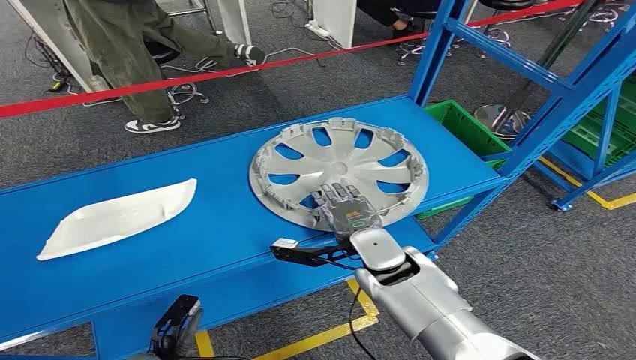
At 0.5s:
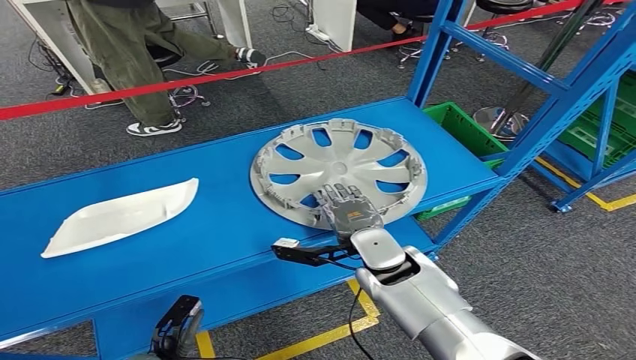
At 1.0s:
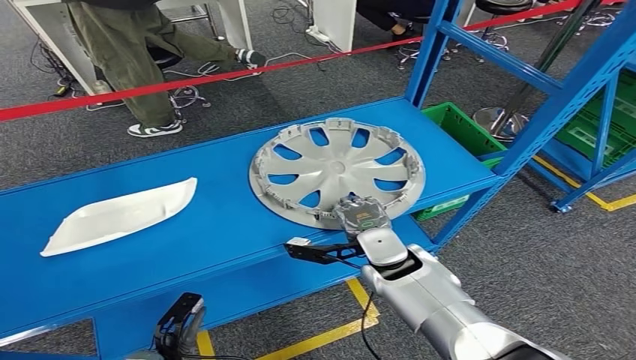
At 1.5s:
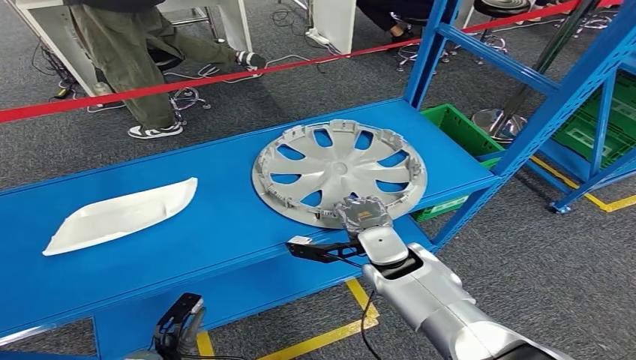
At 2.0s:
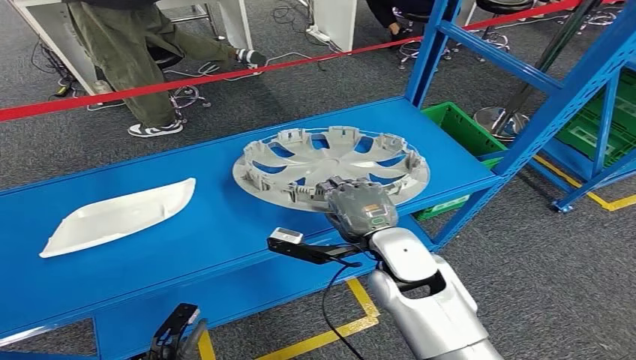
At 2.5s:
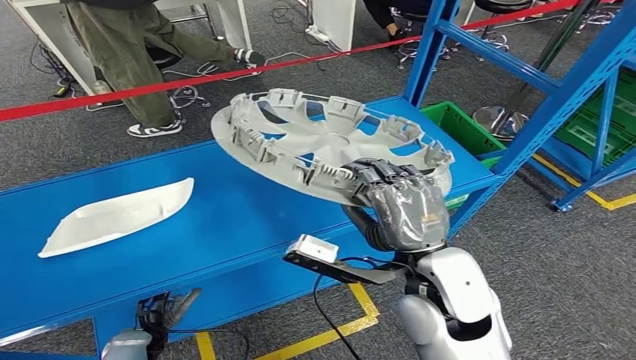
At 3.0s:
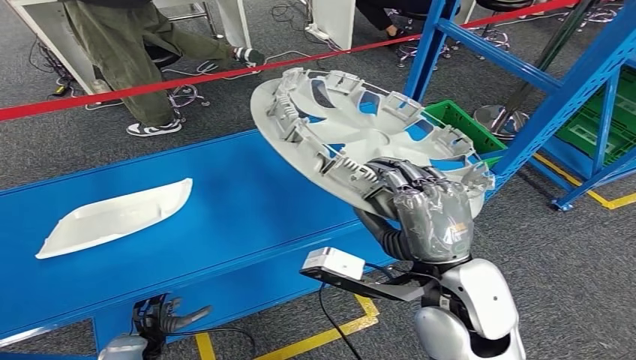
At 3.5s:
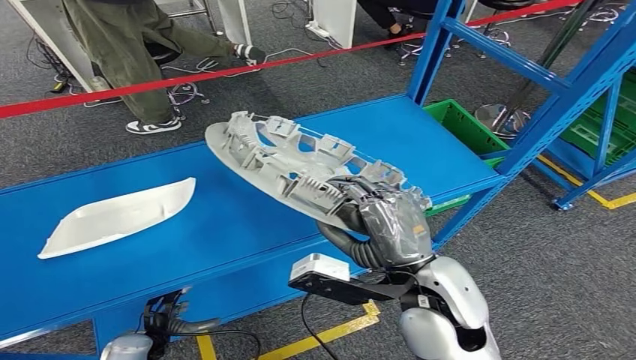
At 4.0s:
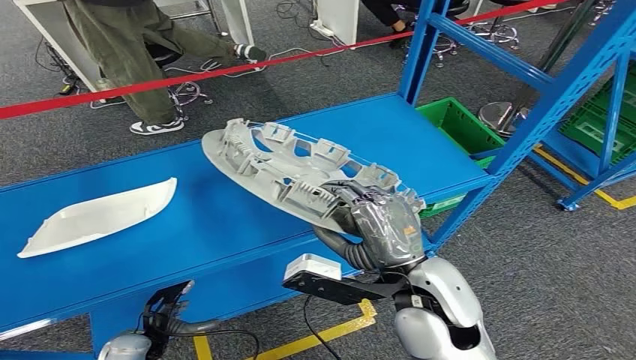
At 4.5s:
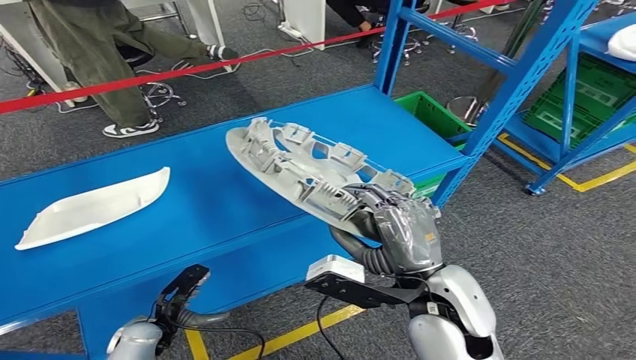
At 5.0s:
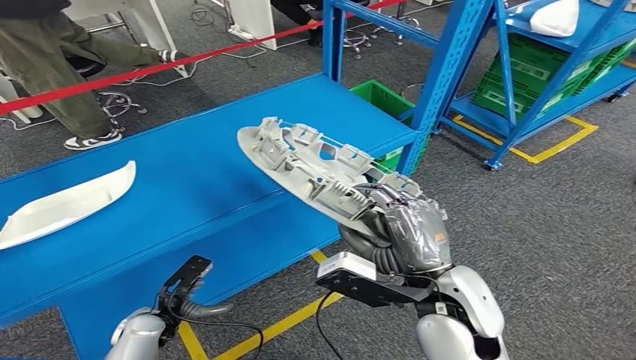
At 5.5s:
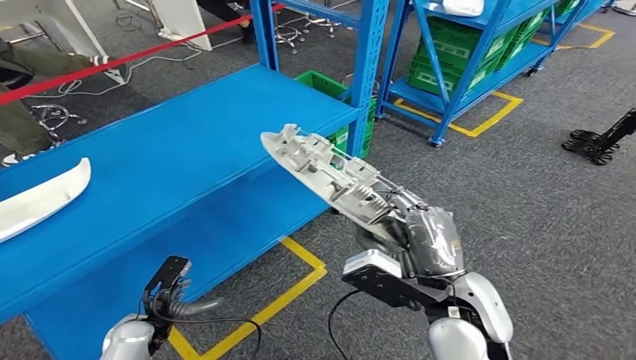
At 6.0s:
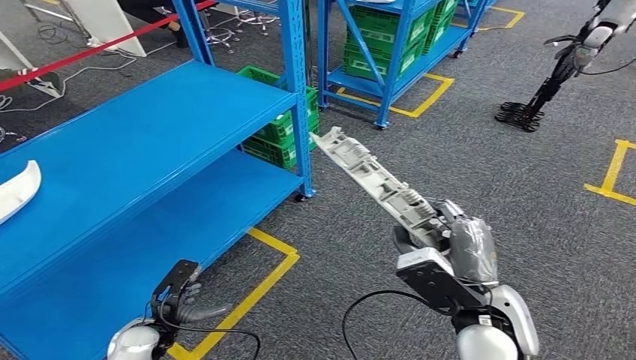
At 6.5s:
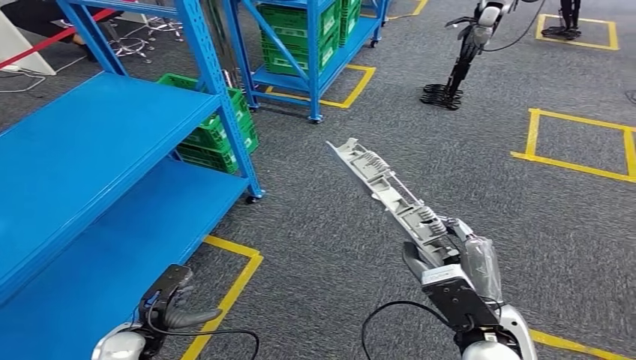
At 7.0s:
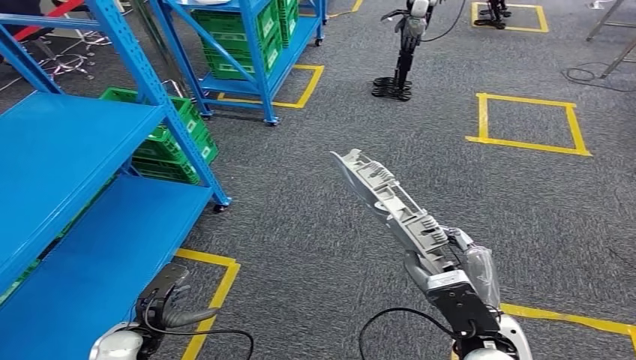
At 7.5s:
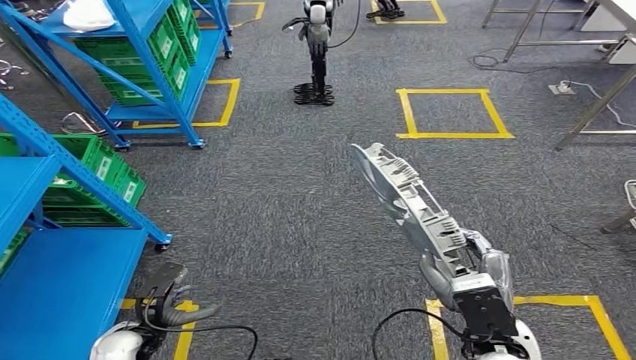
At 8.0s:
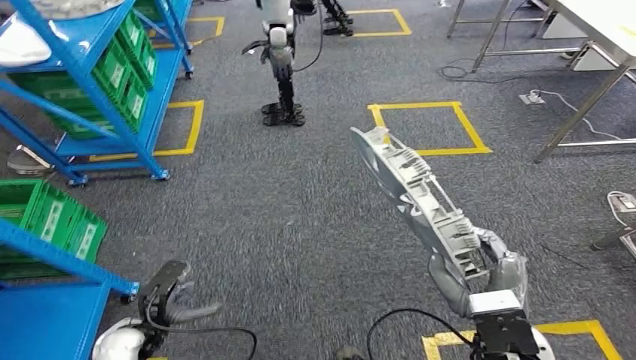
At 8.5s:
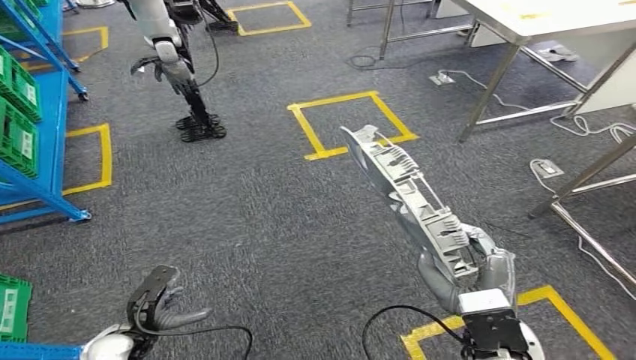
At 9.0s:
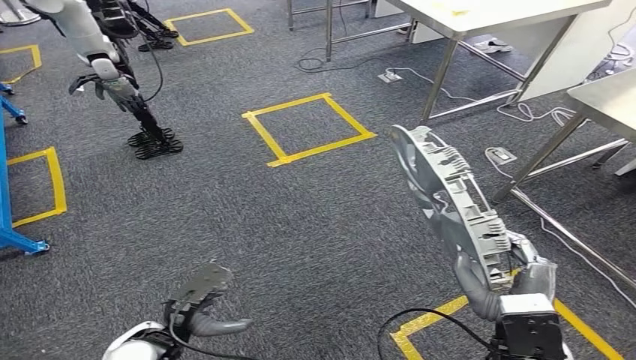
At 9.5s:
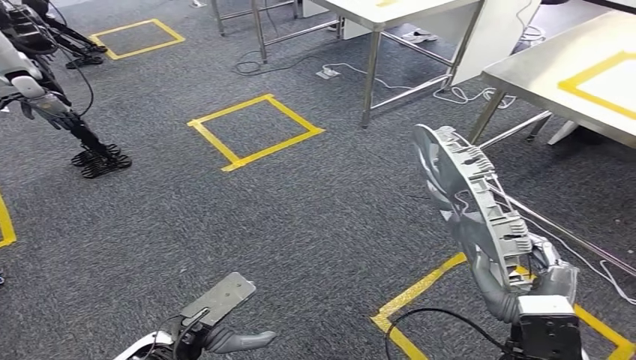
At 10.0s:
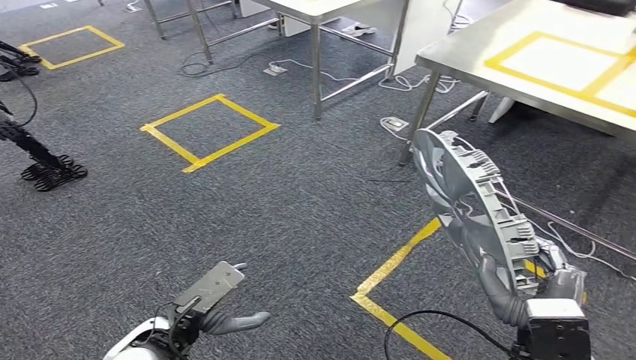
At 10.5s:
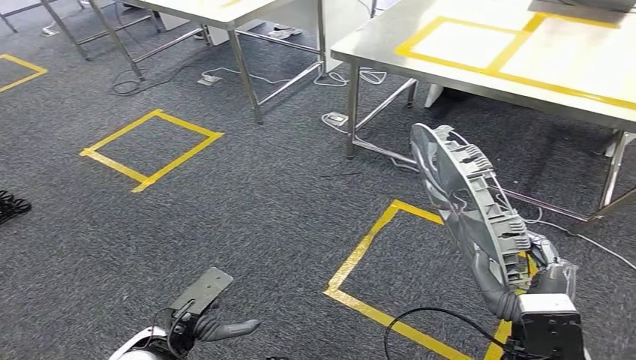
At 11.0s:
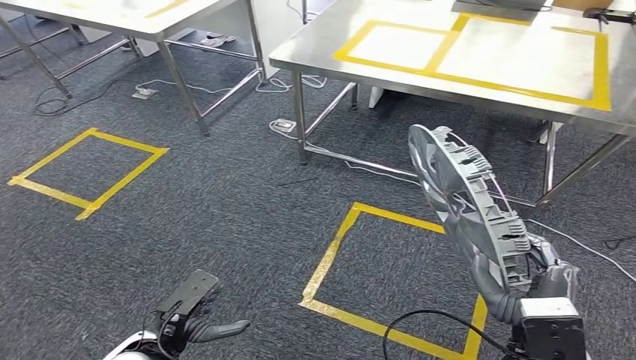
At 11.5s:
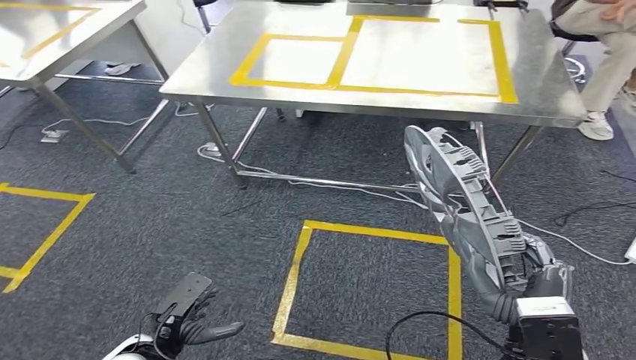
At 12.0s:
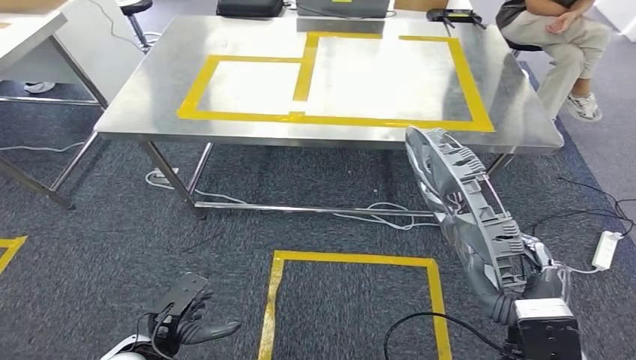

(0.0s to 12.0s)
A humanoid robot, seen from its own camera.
Step, 0.0s - 4.0s: Take small components from the rack.

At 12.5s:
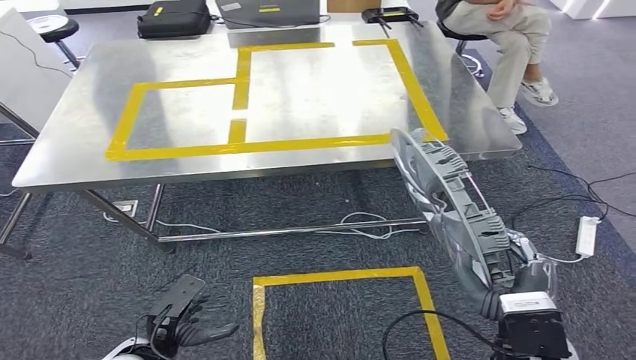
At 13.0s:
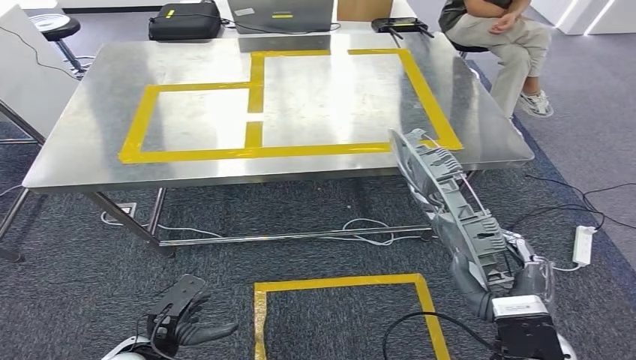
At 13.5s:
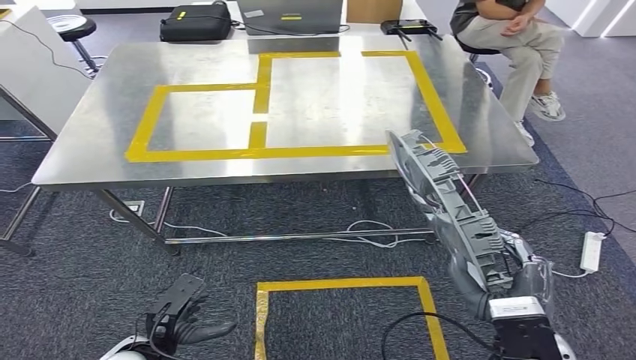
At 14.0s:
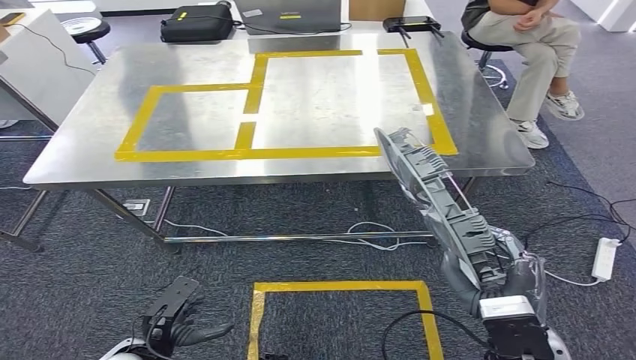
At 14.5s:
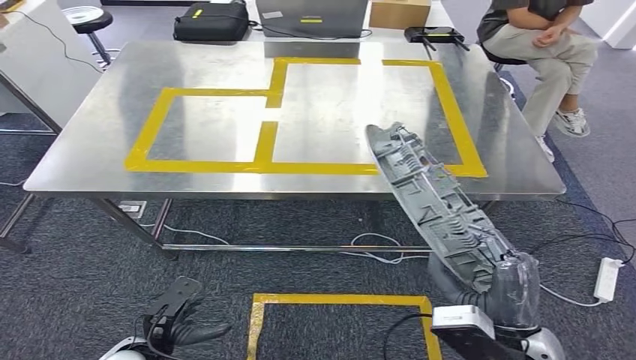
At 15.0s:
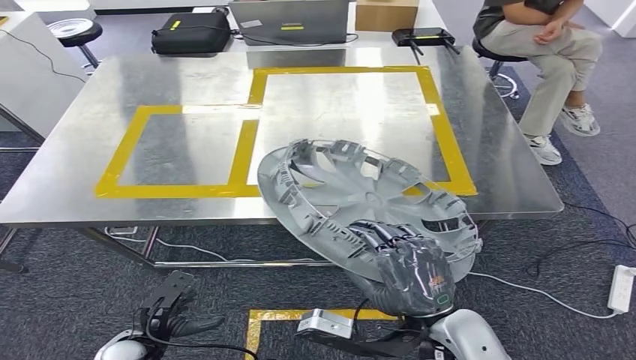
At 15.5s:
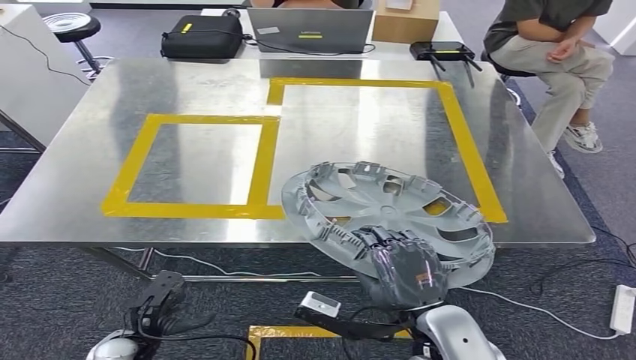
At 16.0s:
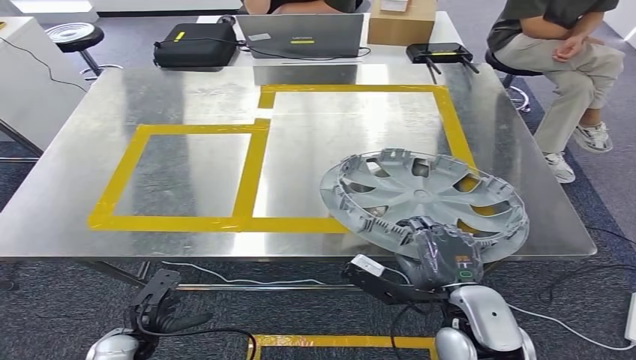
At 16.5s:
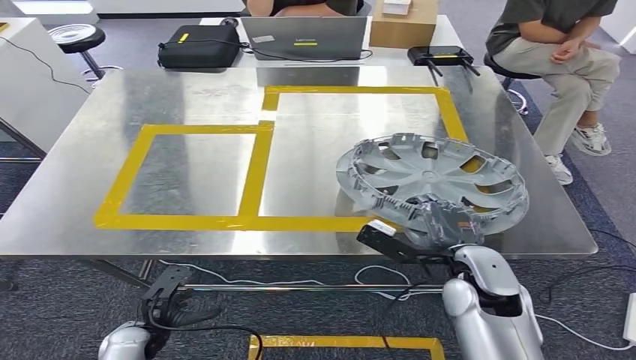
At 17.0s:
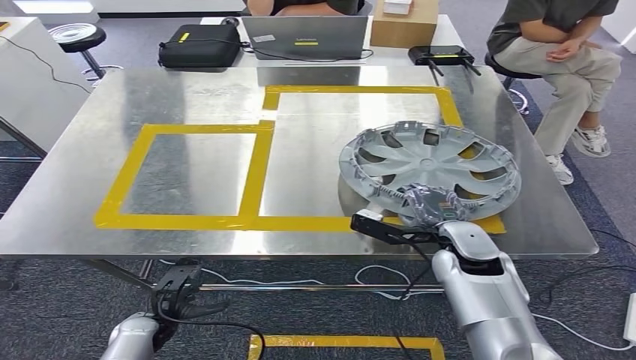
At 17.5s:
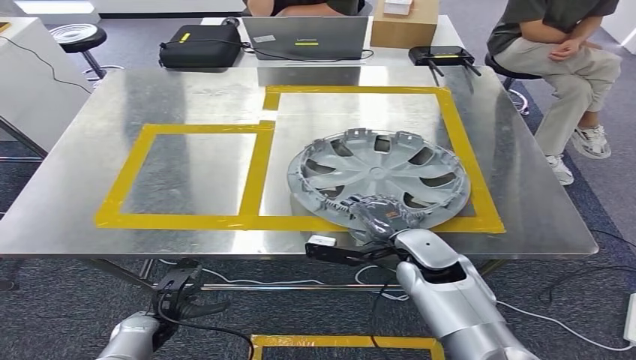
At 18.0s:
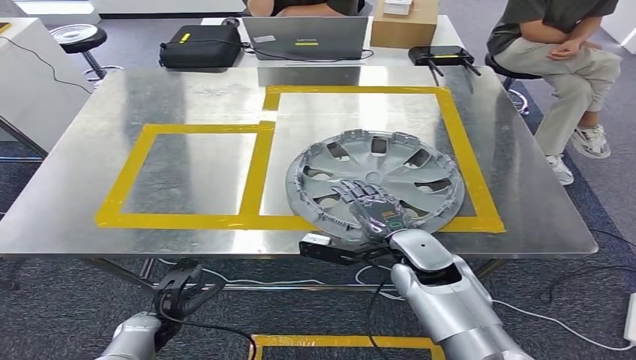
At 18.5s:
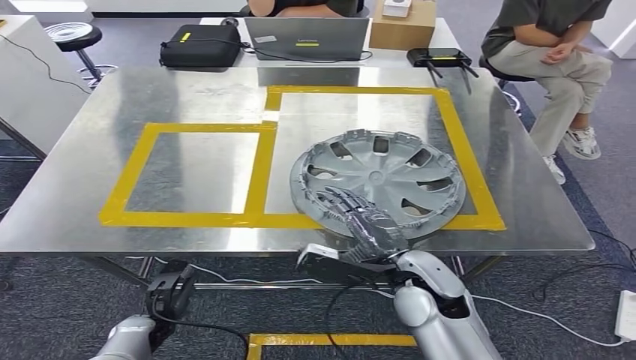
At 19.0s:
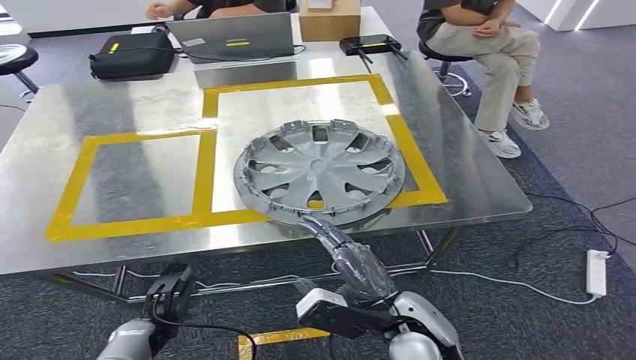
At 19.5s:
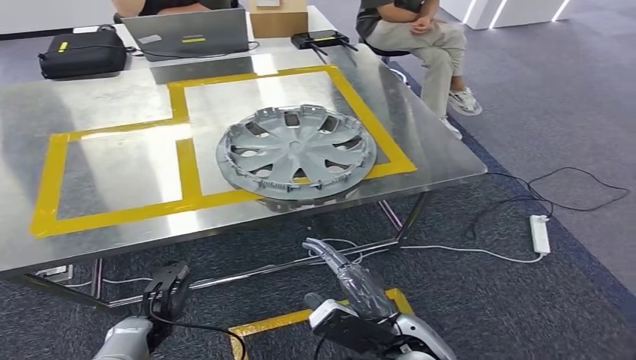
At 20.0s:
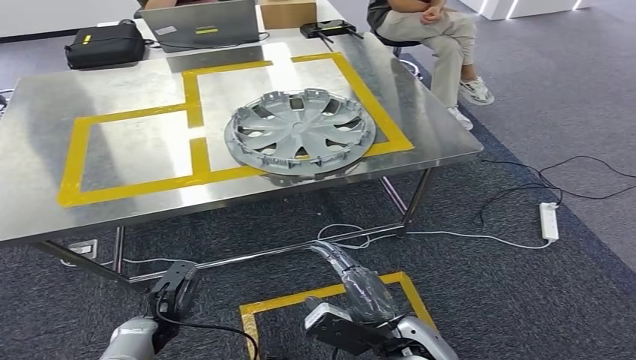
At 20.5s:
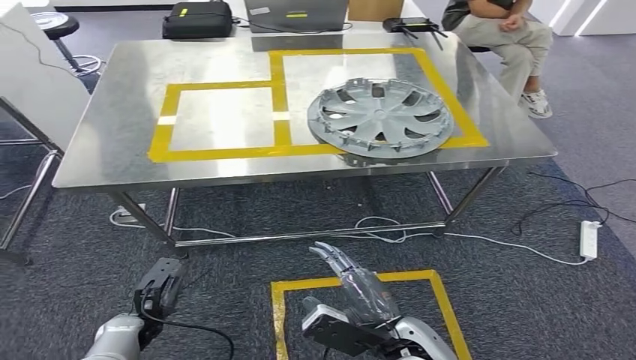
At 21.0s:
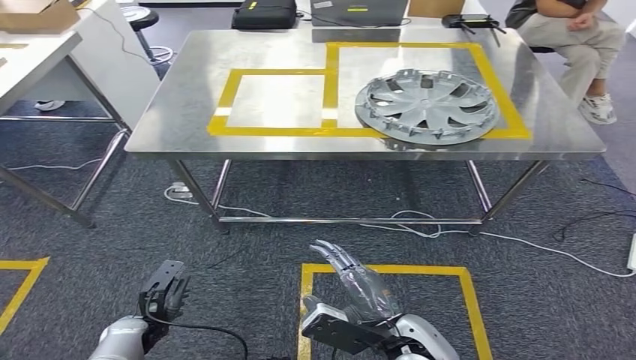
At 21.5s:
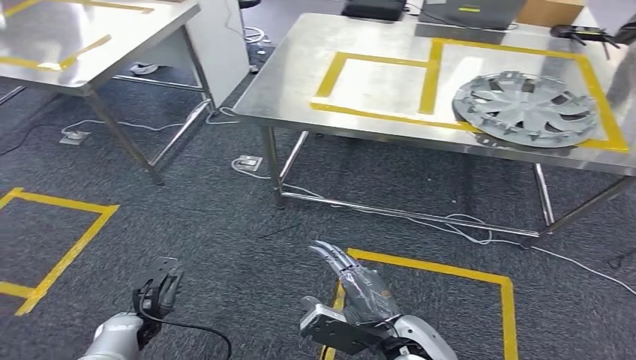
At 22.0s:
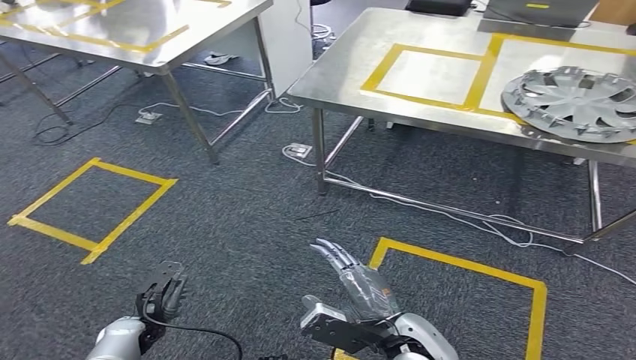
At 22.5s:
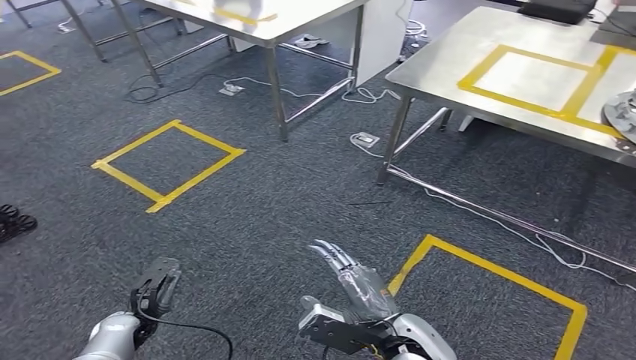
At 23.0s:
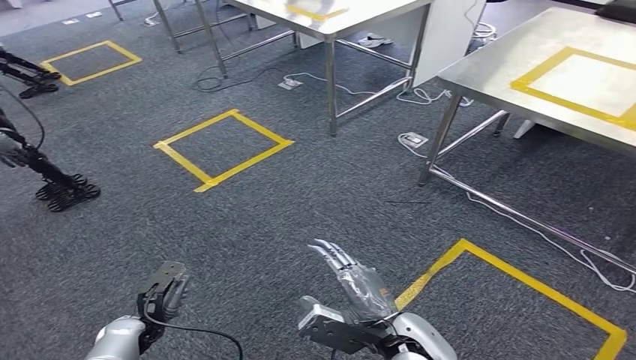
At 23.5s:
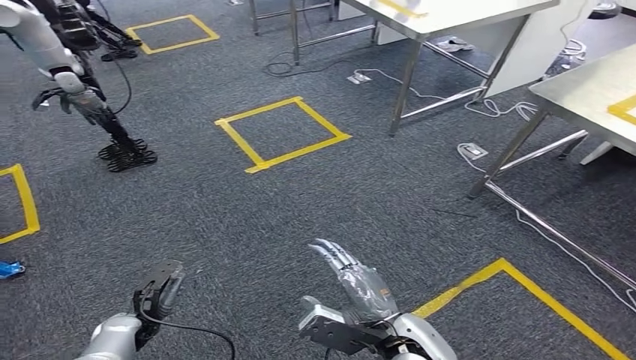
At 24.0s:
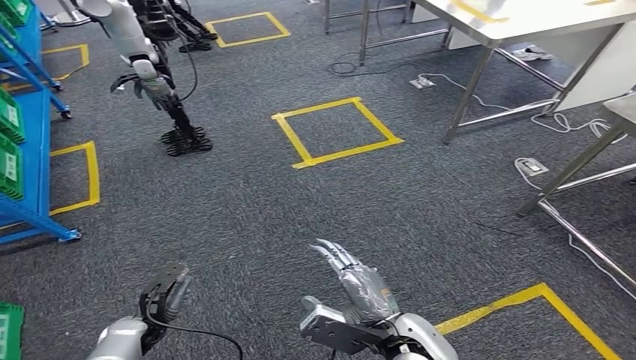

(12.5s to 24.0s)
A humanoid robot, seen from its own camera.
Step, 14.0s - 21.0s: Insert the small parts into the corresponding holes on the workbench.
